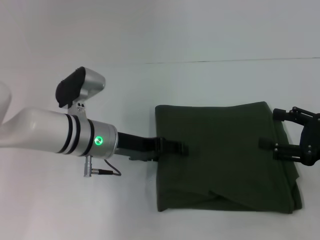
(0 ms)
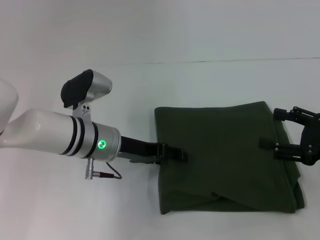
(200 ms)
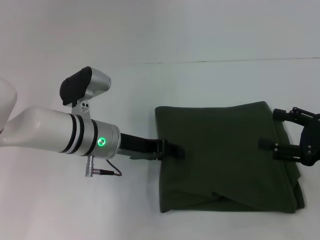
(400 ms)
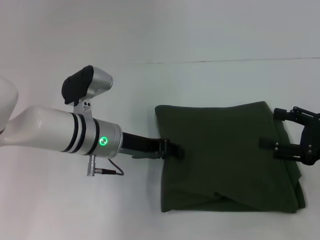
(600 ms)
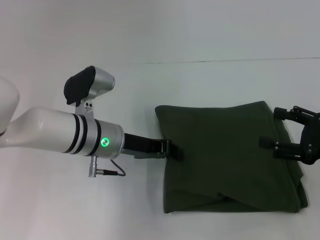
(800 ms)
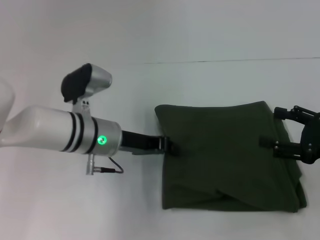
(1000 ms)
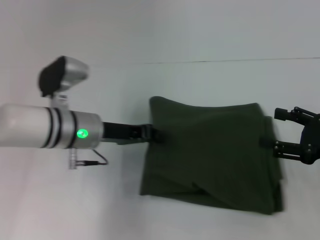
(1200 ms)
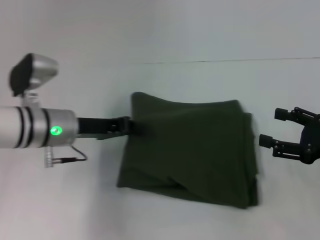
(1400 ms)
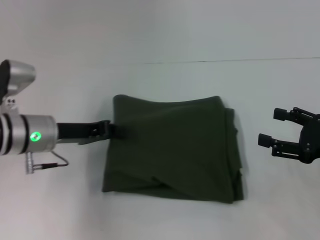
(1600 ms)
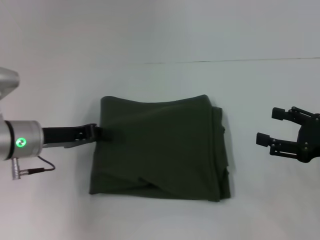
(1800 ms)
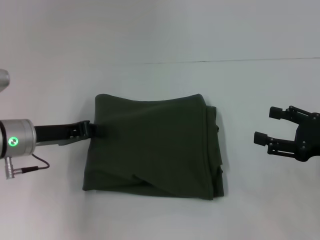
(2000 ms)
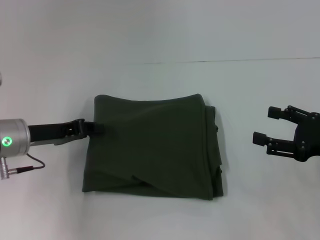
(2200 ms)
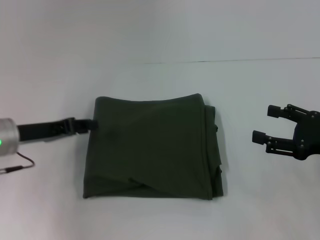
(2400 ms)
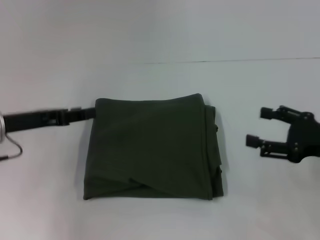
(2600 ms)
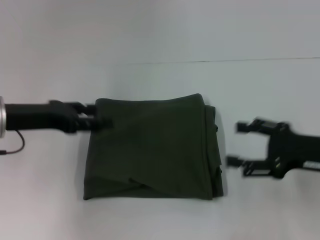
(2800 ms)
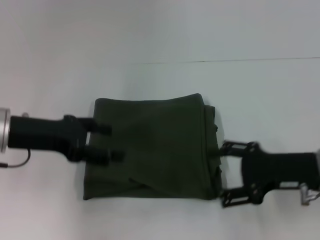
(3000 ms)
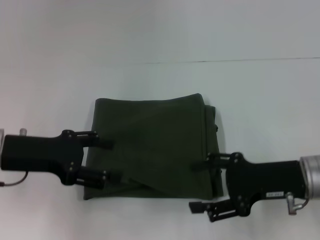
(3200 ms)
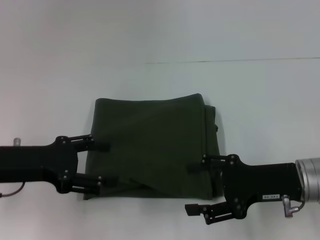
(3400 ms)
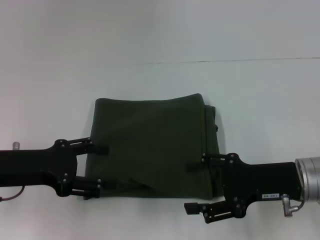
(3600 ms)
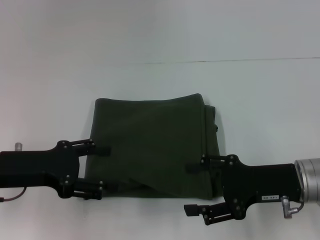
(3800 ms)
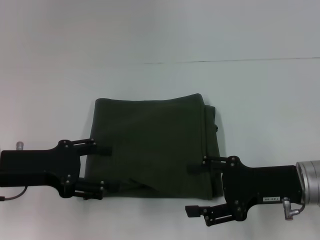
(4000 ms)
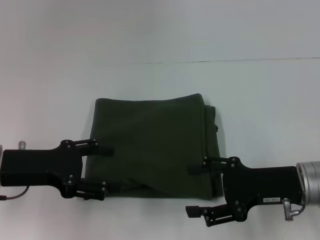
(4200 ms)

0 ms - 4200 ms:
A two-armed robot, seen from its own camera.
0 ms - 1400 ms: The left gripper moves to the left, approximately 5 cm, and closes up.
1400 ms - 2800 ms: The left gripper moves to the left and upward, approximately 10 cm, and opens.
2800 ms - 4200 ms: The left gripper is displaced backward by approximately 5 cm; the right gripper shifts roughly 5 cm to the left.

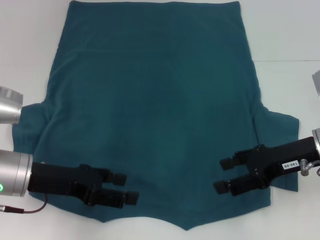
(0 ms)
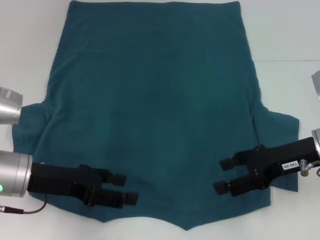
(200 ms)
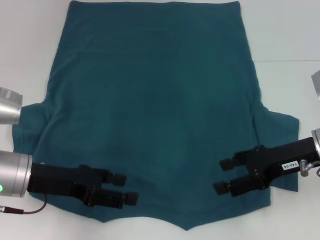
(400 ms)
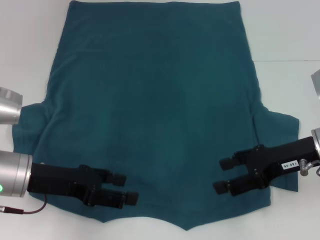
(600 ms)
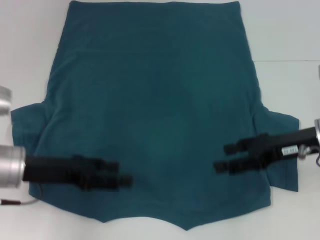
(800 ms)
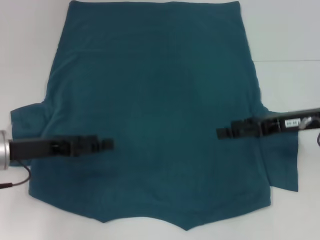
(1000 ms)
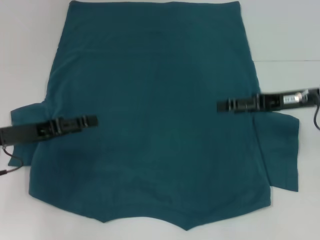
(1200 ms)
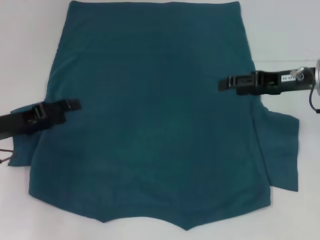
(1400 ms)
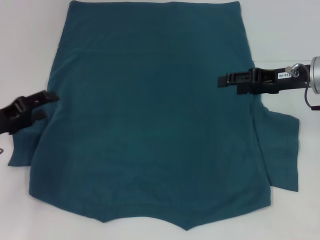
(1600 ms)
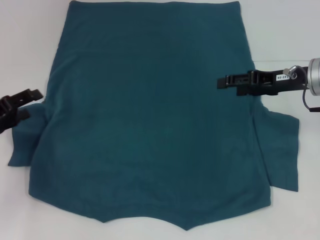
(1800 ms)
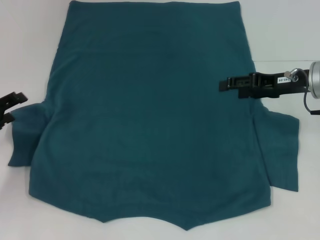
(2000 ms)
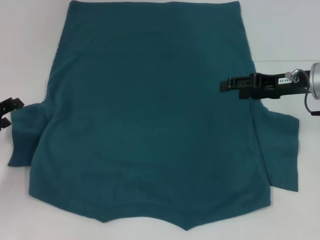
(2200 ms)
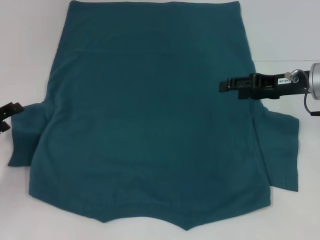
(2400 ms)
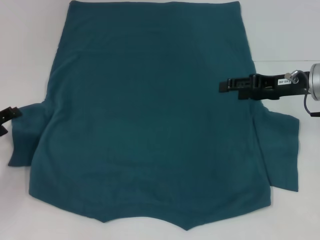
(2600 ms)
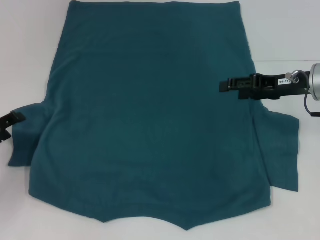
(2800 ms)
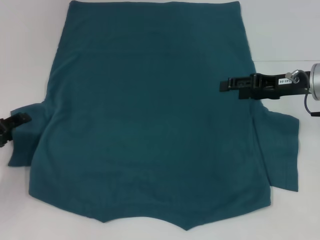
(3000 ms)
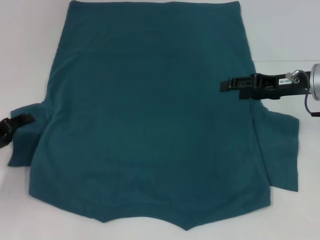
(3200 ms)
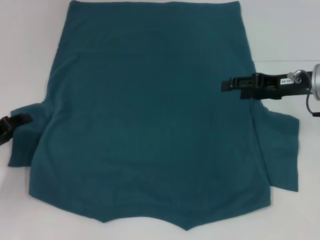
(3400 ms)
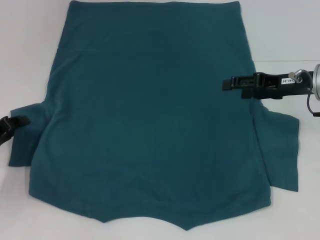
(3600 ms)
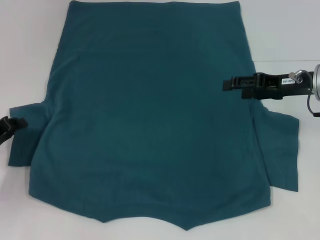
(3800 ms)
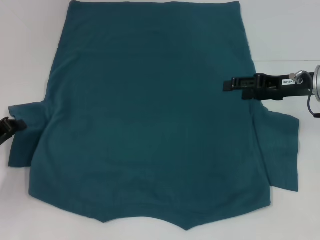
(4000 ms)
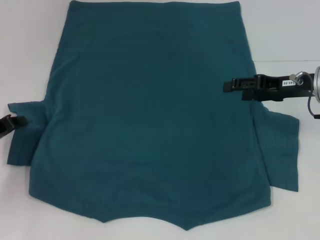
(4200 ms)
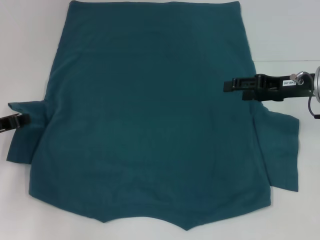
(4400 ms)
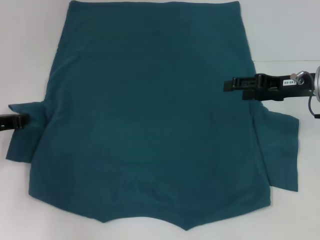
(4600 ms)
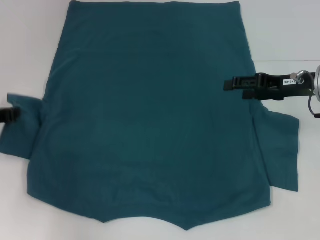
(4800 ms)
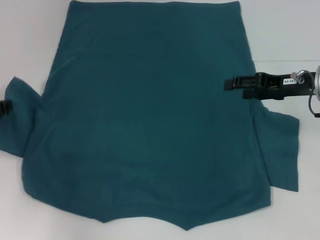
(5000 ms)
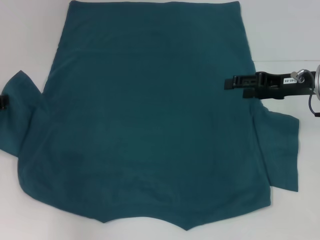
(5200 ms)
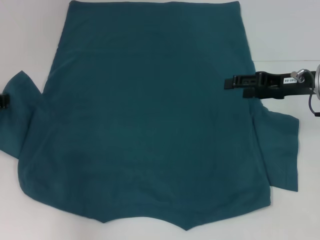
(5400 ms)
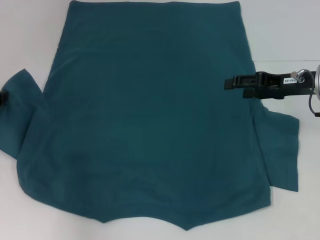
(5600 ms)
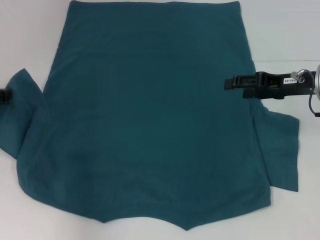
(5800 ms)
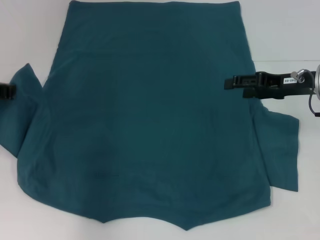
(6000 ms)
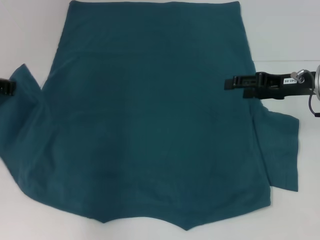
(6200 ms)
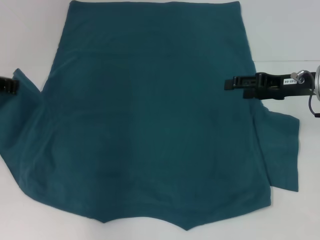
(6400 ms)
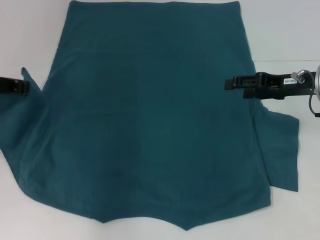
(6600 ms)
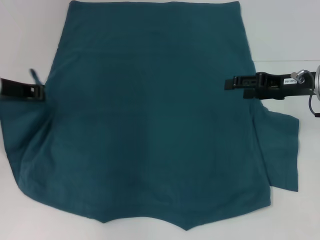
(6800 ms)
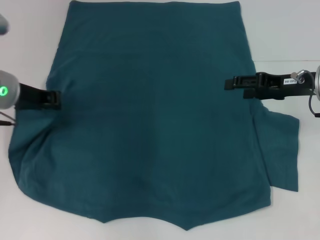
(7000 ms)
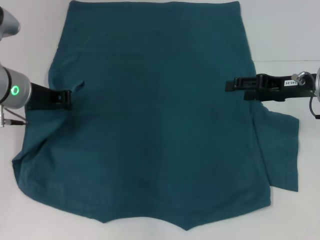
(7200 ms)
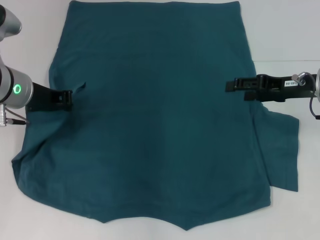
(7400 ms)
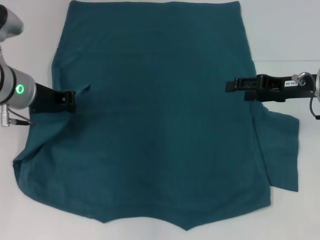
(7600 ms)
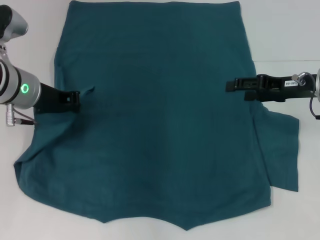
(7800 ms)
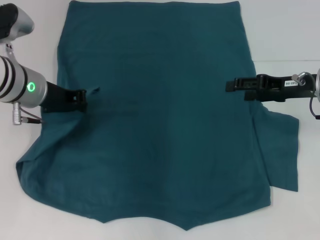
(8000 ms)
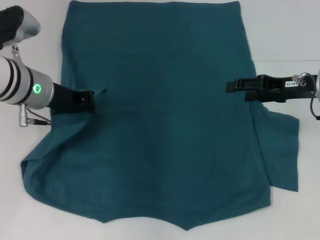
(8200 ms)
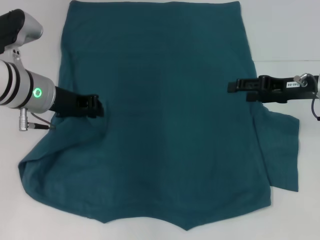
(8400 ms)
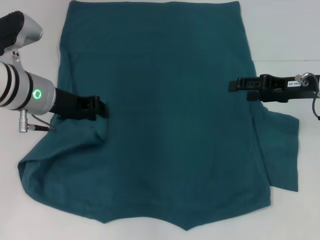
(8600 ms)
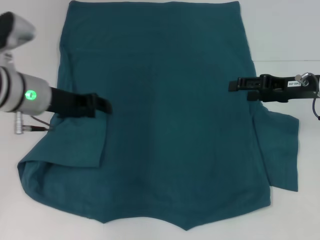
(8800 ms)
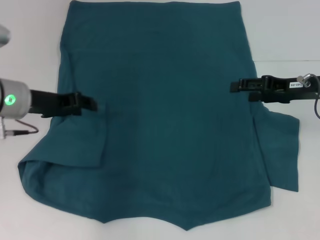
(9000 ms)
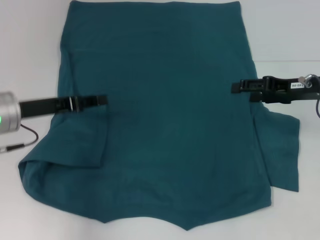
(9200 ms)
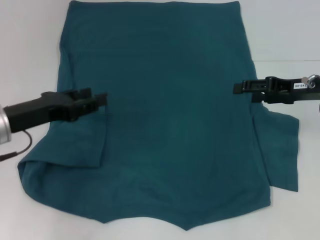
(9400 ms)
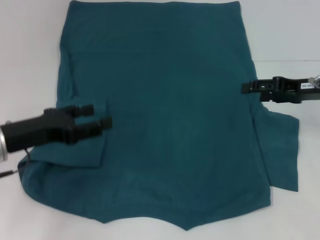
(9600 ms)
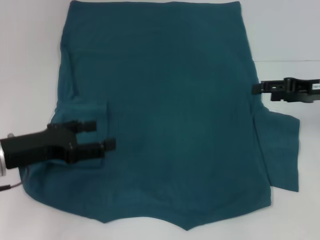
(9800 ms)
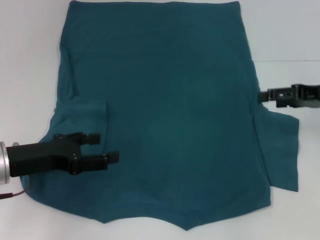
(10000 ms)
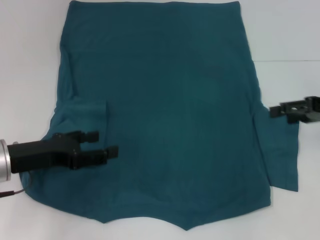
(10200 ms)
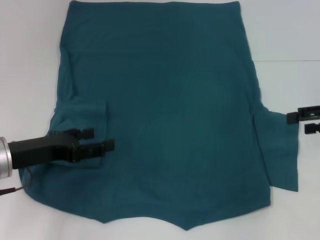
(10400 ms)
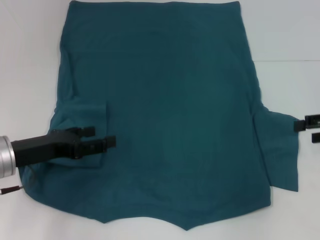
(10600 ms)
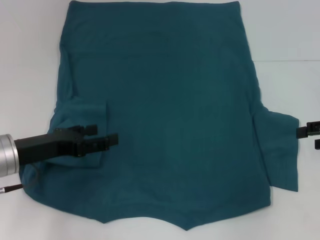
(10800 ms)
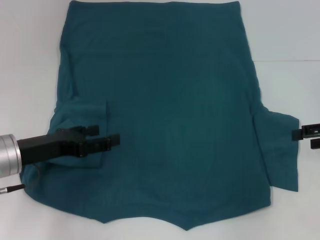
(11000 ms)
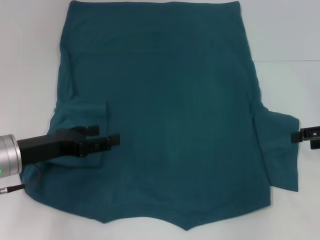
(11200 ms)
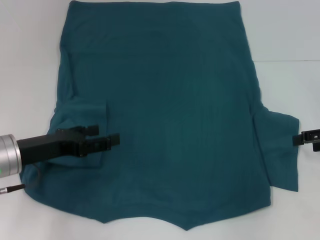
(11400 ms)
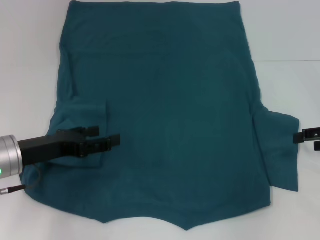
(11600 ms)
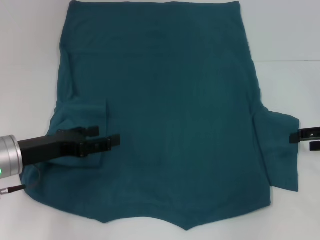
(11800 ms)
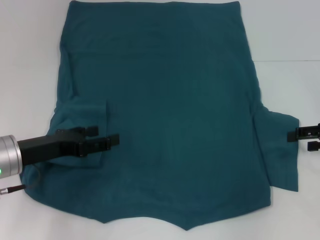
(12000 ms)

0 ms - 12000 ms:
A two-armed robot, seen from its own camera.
Step, 0 ms - 9000 ms: Fold the bottom left sleeve with your left hand.
0 ms - 1600 ms: The right gripper heads forward, covering approximately 10 cm, while the left gripper shifts about 10 cm to the left.
1600 ms - 3000 ms: The grippers move only a little.
3000 ms - 4400 ms: The left gripper closes.
4400 ms - 6000 ms: The left gripper moves upward, about 5 cm.
6000 ms - 7600 ms: The left gripper is displaced to the right by some 10 cm.
7600 ms - 9000 ms: The grippers make only small movements.
9000 ms - 10400 ms: The right gripper moves to the right, approximately 10 cm. Meanwhile the left gripper moves backward, about 10 cm, and opens its fingers.
10400 ms - 12000 ms: The grippers make only small movements.

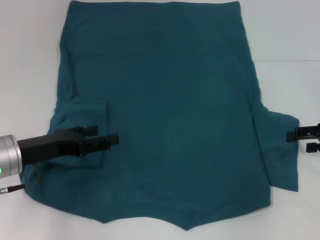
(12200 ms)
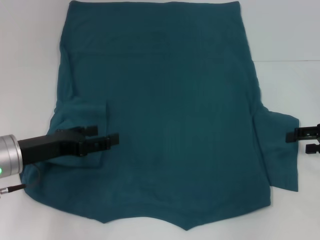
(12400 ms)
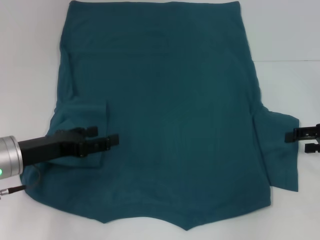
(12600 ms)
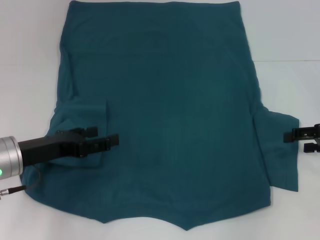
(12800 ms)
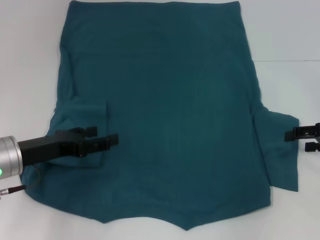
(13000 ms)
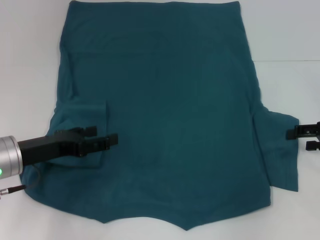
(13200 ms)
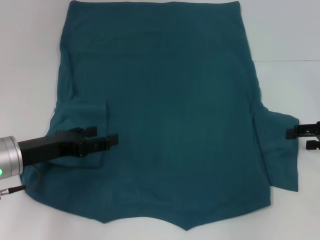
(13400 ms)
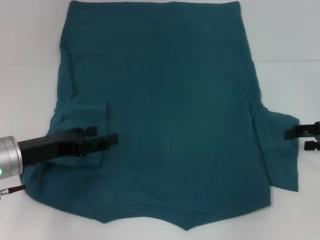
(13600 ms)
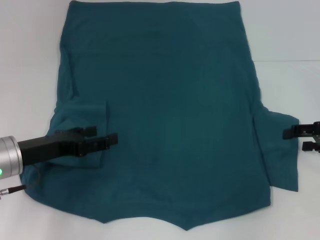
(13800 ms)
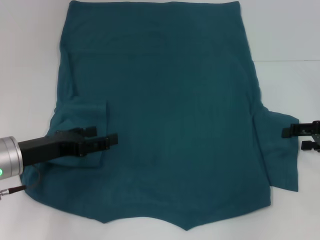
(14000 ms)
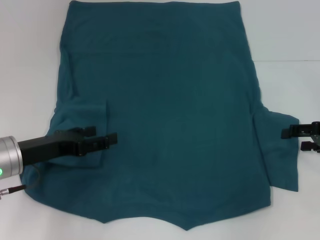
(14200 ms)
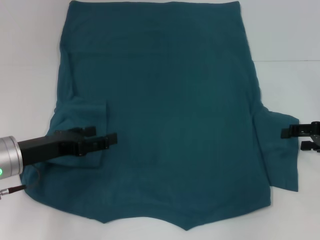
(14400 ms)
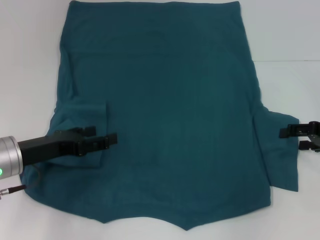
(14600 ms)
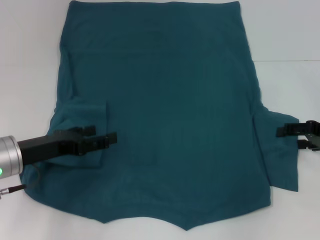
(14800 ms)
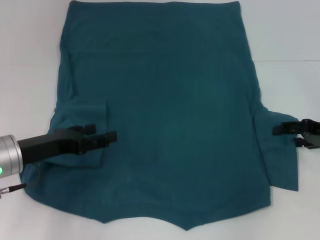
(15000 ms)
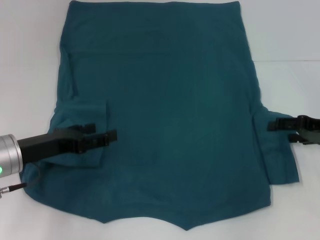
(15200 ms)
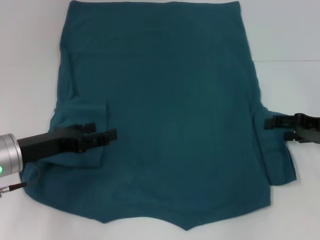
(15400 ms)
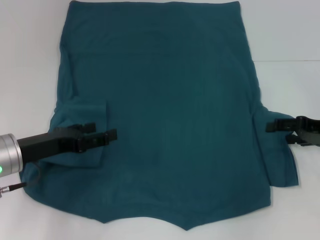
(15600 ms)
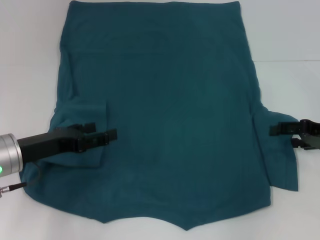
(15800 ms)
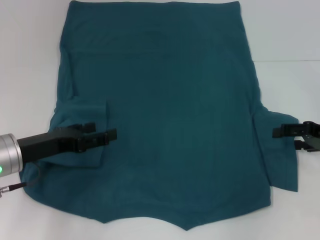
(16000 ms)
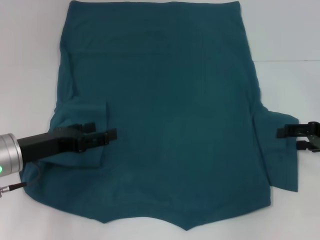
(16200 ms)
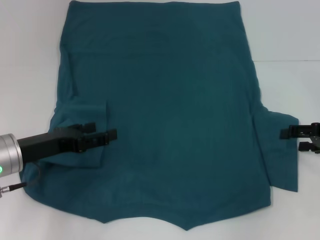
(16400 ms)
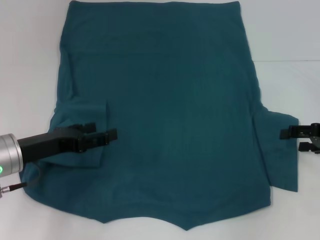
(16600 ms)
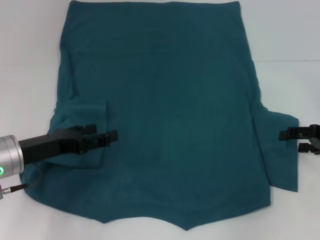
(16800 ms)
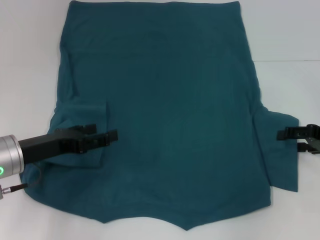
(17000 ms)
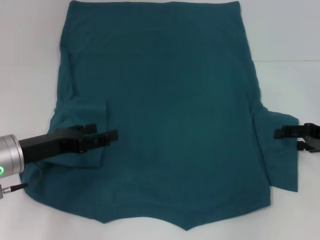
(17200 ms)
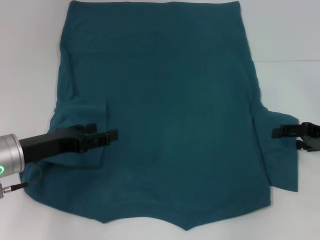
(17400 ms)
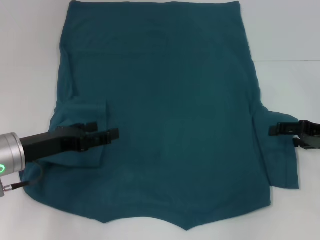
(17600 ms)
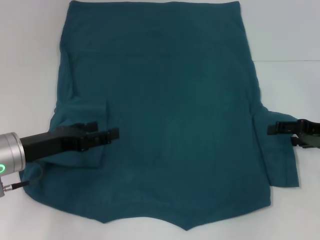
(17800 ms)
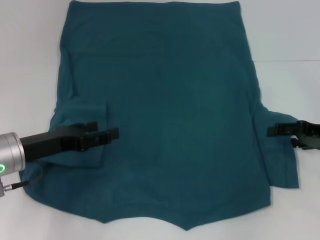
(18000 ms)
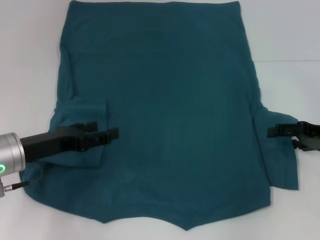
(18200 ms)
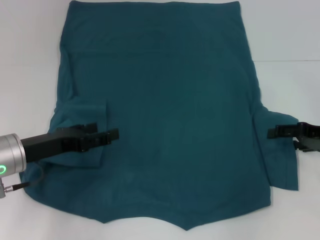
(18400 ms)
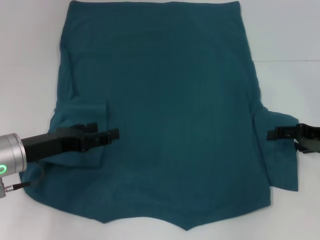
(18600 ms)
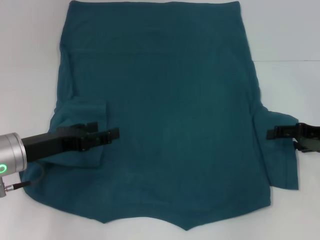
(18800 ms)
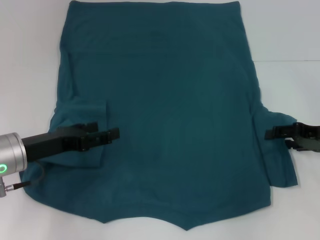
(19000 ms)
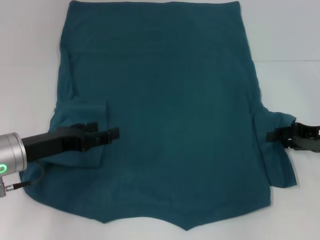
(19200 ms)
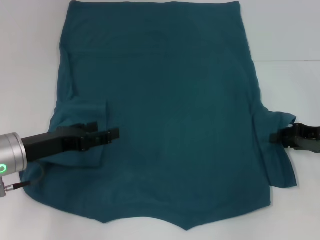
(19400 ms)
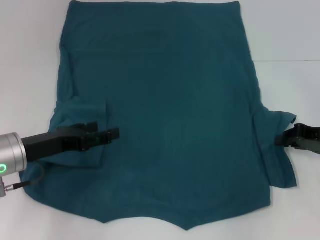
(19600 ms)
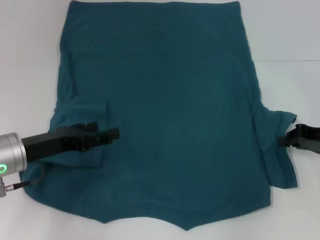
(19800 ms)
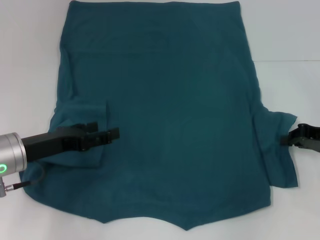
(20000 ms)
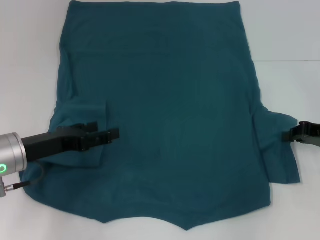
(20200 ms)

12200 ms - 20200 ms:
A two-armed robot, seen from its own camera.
12200 ms - 13800 ms: The two grippers keep their place.
13800 ms - 18600 ms: The grippers make only small movements.
18600 ms - 20200 ms: The right gripper closes.
